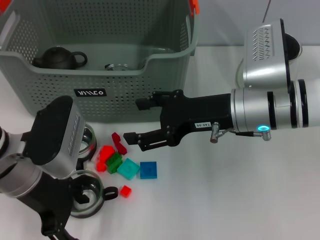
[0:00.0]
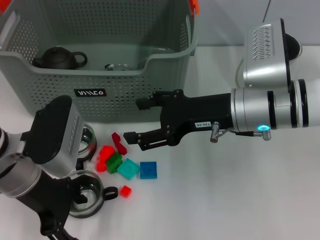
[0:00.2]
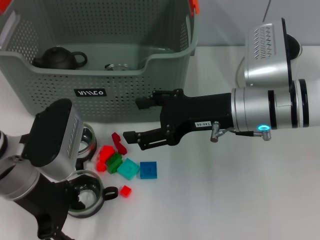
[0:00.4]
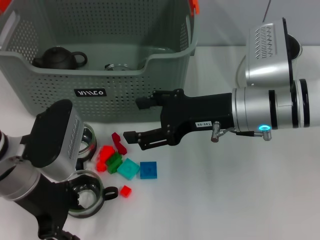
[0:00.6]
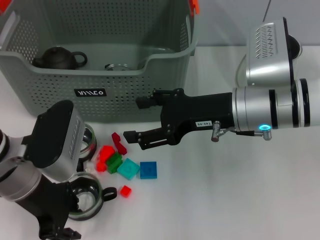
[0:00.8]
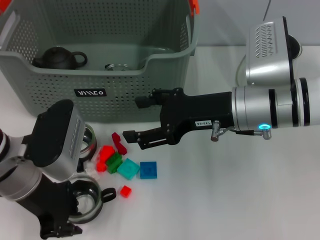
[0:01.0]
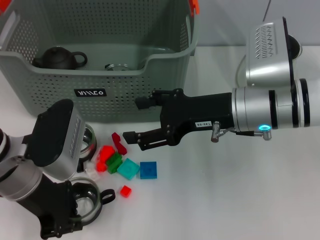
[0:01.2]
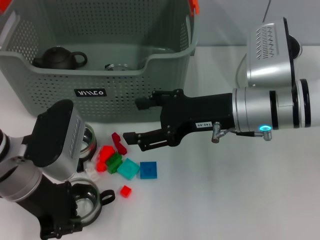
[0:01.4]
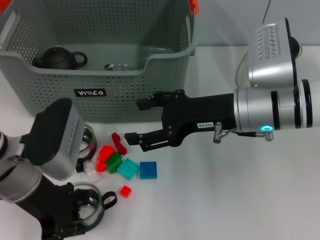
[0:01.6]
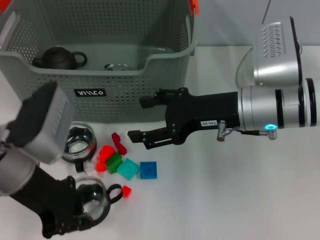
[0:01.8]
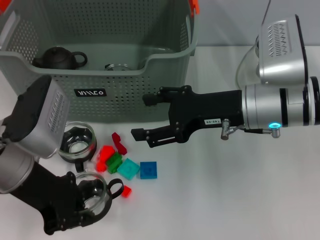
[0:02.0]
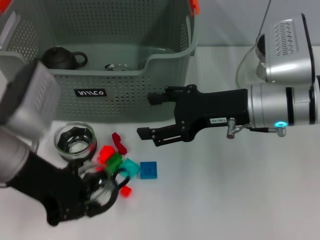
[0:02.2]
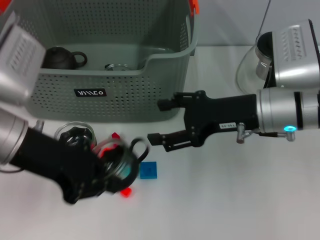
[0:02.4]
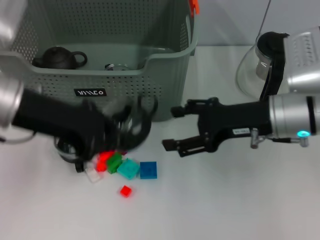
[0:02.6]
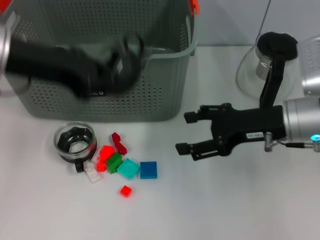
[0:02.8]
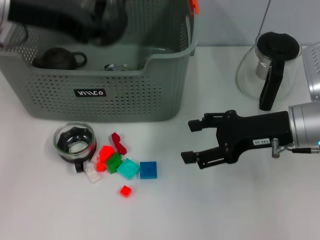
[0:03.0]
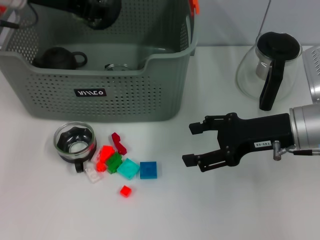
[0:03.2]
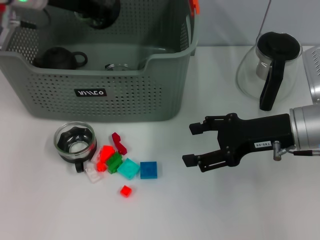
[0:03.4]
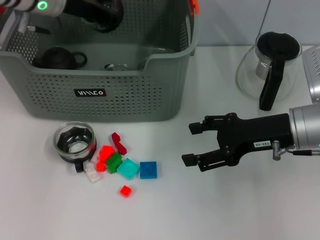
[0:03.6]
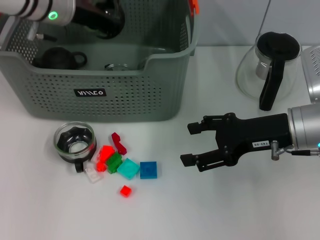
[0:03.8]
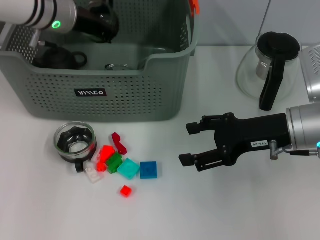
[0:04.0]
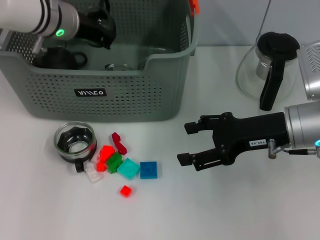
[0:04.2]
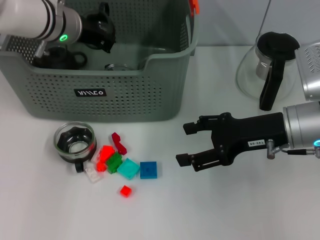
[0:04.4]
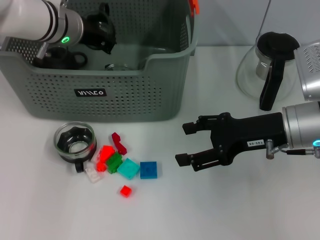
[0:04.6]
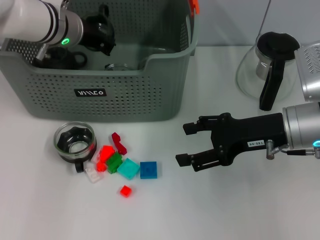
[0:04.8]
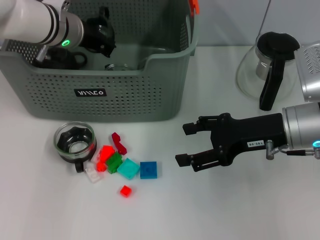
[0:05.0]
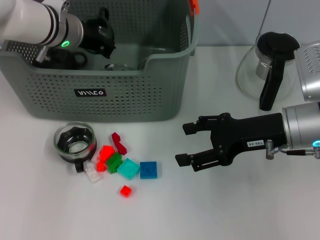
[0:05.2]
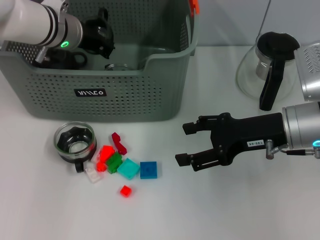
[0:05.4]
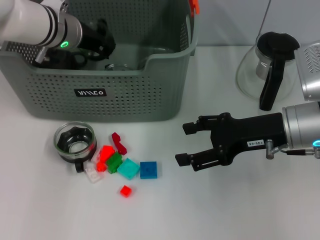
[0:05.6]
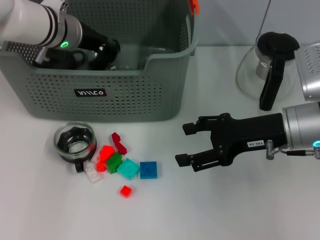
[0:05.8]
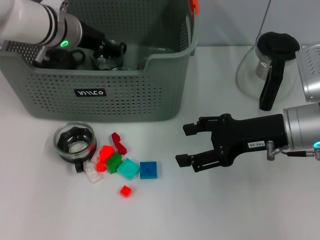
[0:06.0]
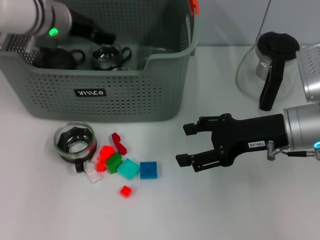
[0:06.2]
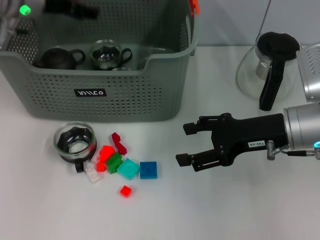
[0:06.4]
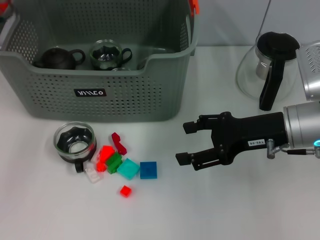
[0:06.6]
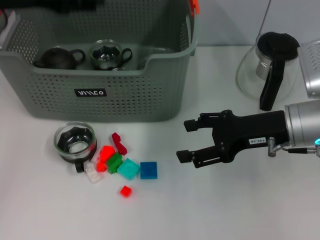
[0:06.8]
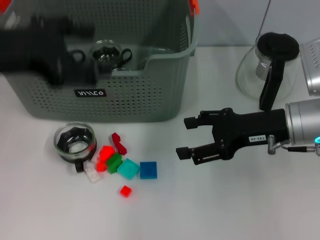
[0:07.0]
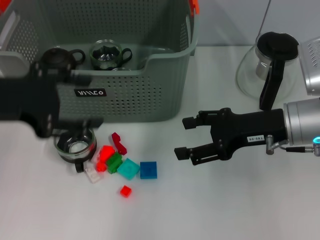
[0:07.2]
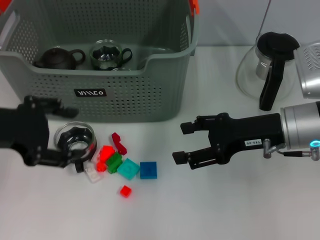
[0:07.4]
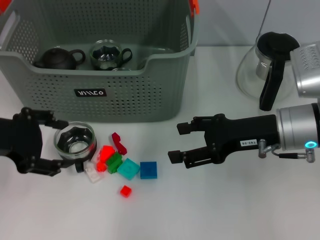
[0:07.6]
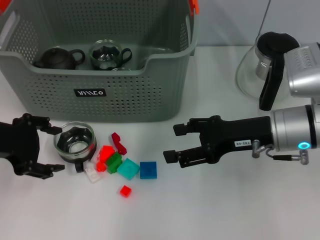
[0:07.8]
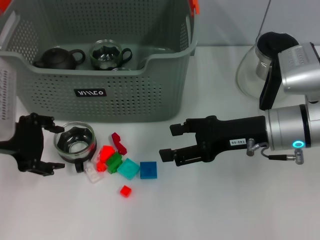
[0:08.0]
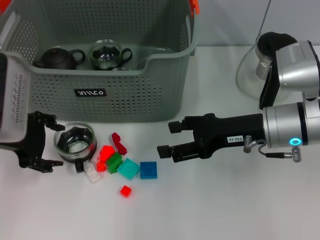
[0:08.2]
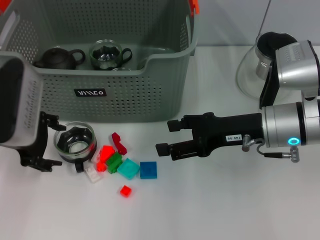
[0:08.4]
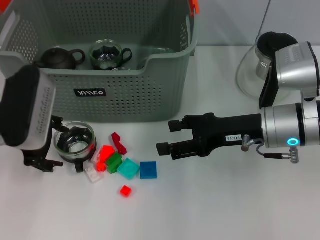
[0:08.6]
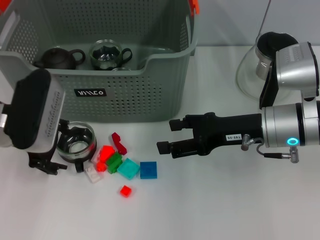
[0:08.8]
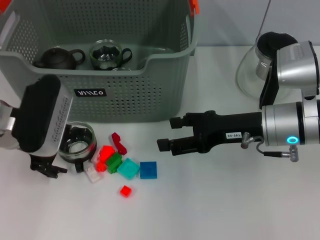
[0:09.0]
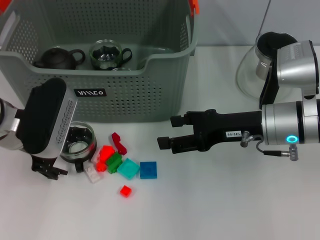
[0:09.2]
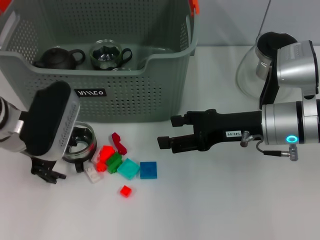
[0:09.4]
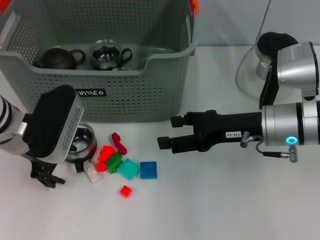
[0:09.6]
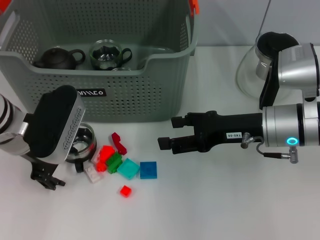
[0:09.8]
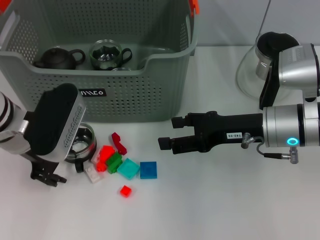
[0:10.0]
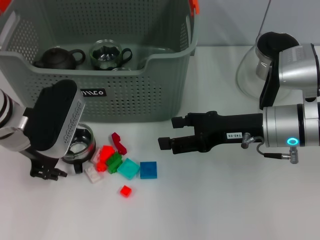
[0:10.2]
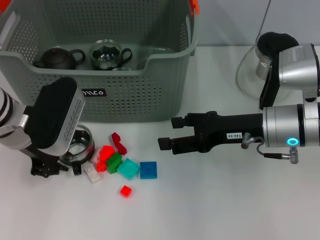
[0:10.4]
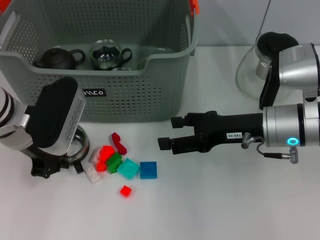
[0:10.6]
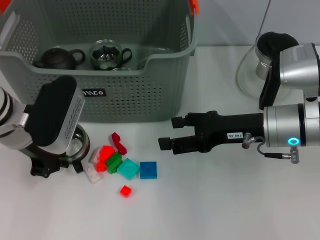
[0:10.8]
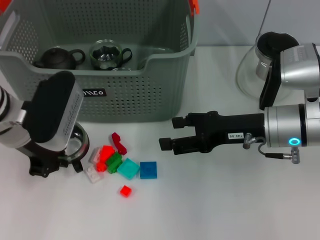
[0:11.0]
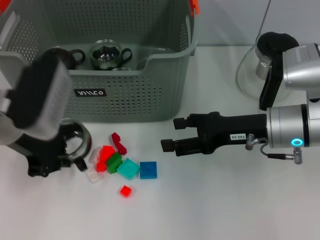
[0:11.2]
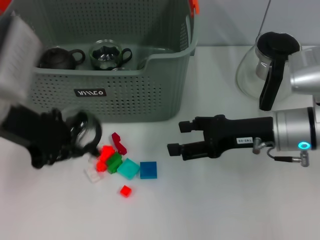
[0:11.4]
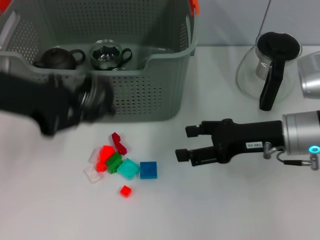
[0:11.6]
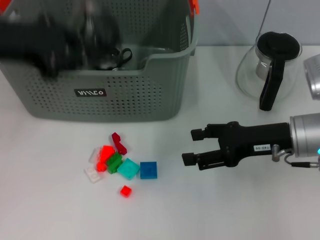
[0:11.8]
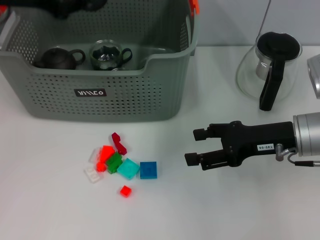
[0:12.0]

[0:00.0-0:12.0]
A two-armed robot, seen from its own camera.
Task of the whole recording: pick up the teacup on the table and place it into the storage bin, pick up the block on the table and place it into the storage bin.
Step, 0:01.6 to 0:06.2: Place the cup in the storage box with left gripper.
Step, 0:06.6 to 0:10.8: Grasp the cup with left gripper.
0:00.0 to 0:01.6: The left gripper closes.
0:01.6 to 0:03.0: The left gripper heads upward and forward, covering approximately 15 cm. The right gripper goes about 5 cm to the right.
0:03.0 to 0:04.4: The left gripper moves downward, forward and to the right, roughly 15 cm.
0:04.4 to 0:06.0: Neither gripper changes place.
0:06.0 to 0:07.6: The left gripper goes roughly 20 cm backward and to the left, and opens.
0:07.6 to 0:09.0: The left gripper heads forward and to the right, covering roughly 5 cm.
0:09.0 to 0:10.4: The left gripper closes up.
0:10.4 to 0:12.0: The left gripper travels upward by approximately 15 cm, and closes up.

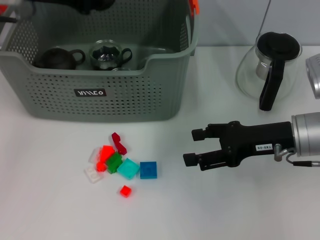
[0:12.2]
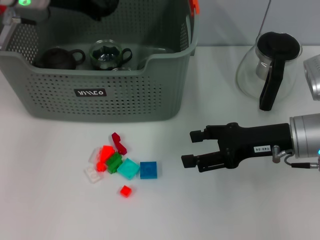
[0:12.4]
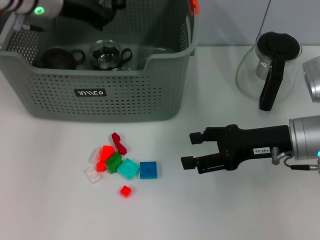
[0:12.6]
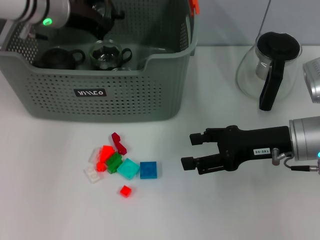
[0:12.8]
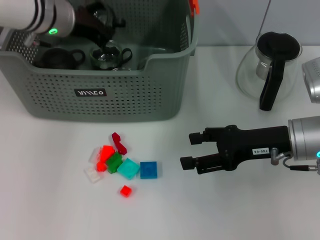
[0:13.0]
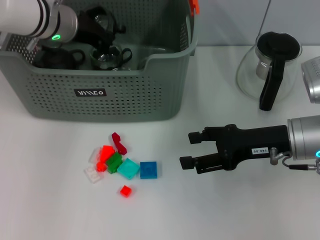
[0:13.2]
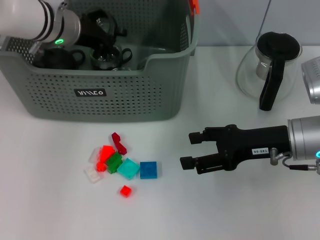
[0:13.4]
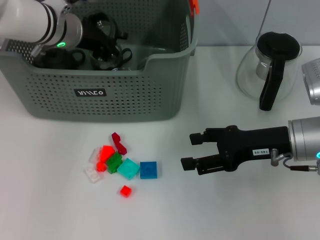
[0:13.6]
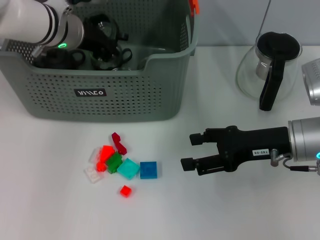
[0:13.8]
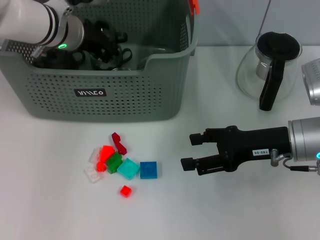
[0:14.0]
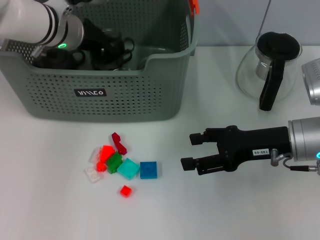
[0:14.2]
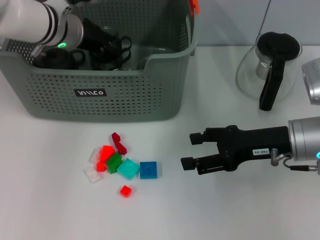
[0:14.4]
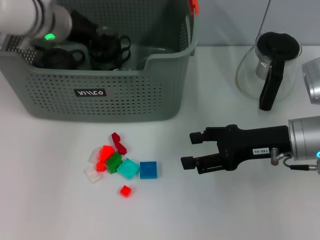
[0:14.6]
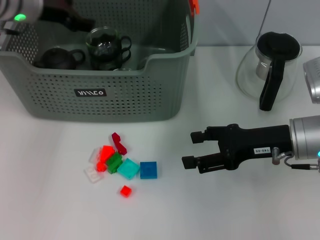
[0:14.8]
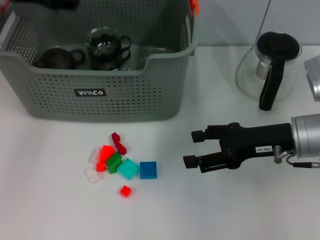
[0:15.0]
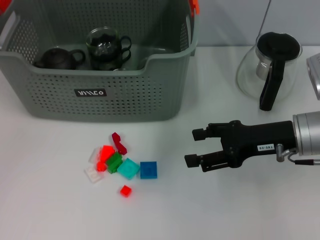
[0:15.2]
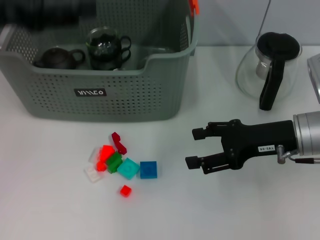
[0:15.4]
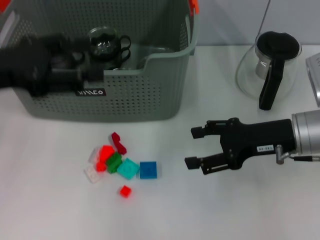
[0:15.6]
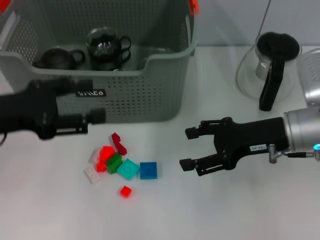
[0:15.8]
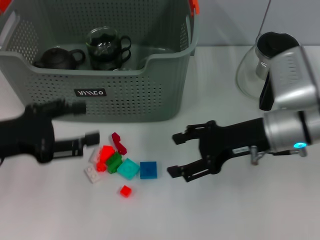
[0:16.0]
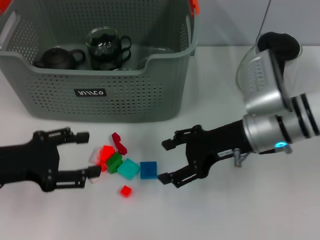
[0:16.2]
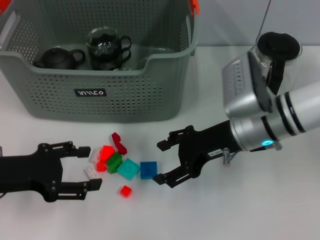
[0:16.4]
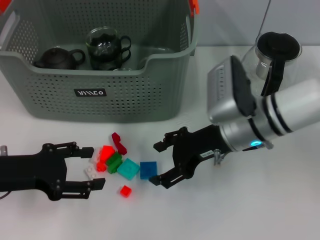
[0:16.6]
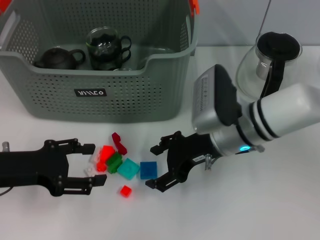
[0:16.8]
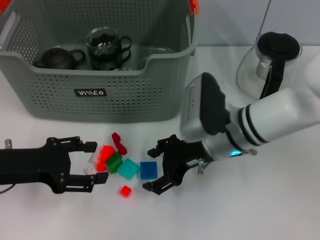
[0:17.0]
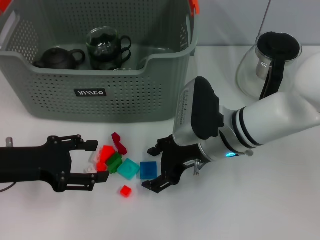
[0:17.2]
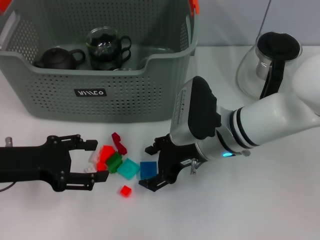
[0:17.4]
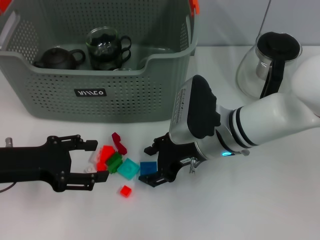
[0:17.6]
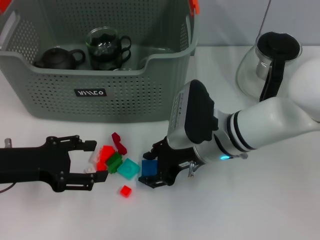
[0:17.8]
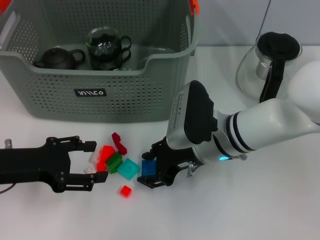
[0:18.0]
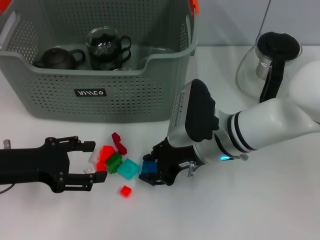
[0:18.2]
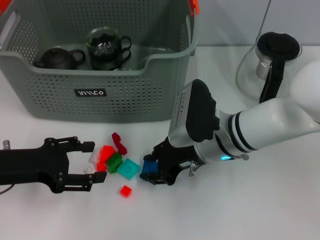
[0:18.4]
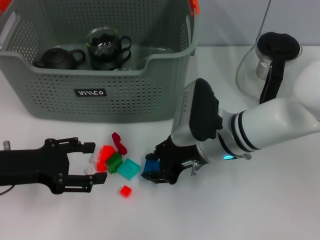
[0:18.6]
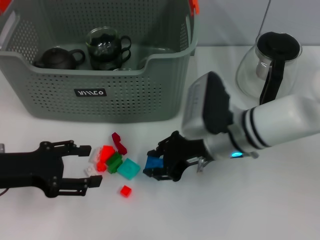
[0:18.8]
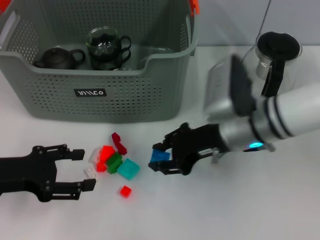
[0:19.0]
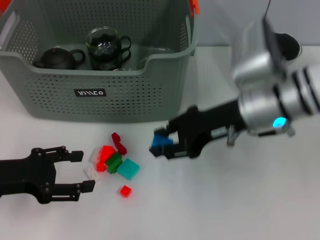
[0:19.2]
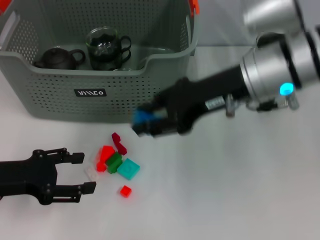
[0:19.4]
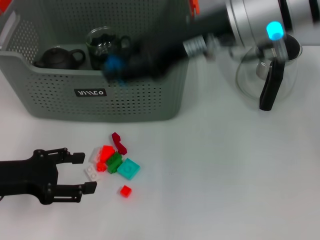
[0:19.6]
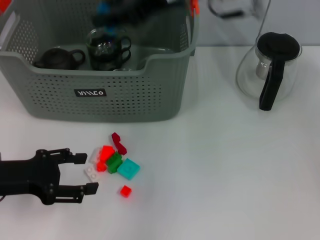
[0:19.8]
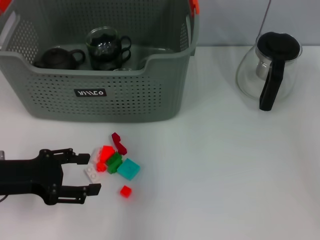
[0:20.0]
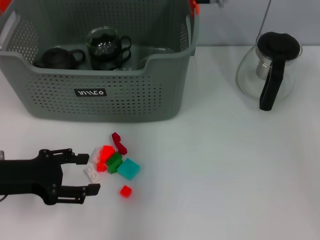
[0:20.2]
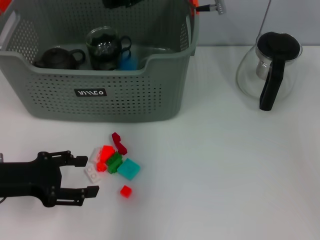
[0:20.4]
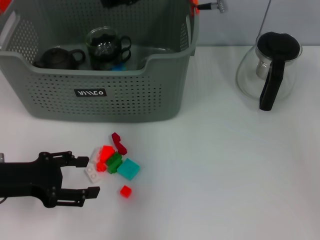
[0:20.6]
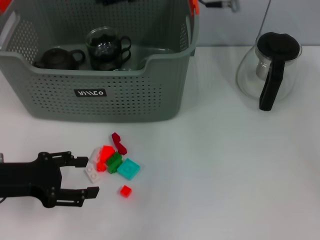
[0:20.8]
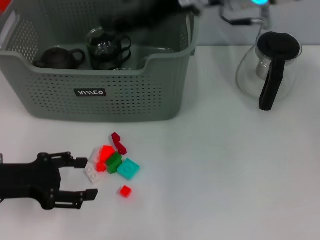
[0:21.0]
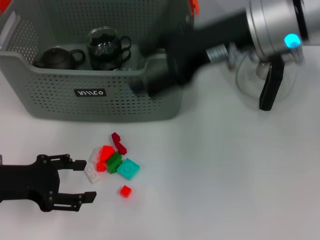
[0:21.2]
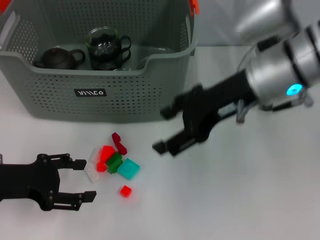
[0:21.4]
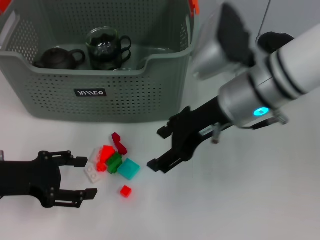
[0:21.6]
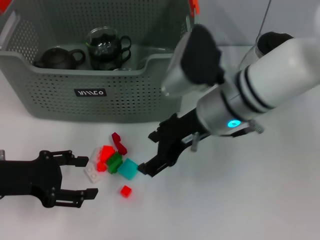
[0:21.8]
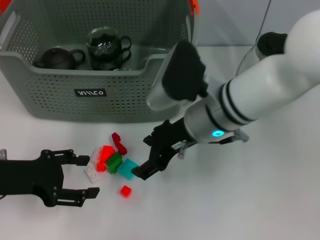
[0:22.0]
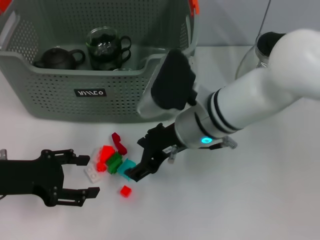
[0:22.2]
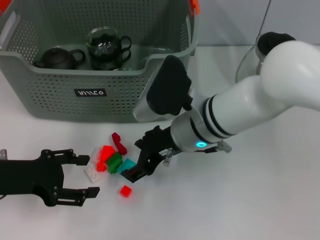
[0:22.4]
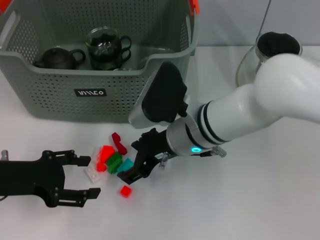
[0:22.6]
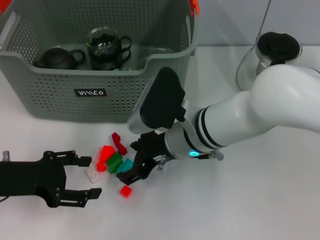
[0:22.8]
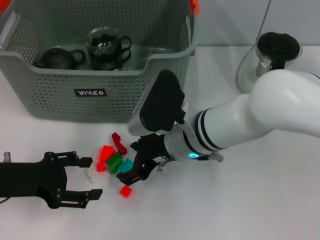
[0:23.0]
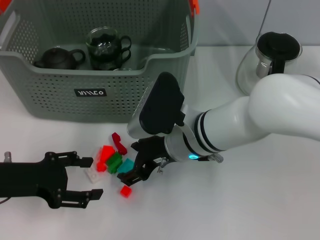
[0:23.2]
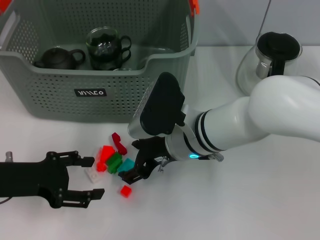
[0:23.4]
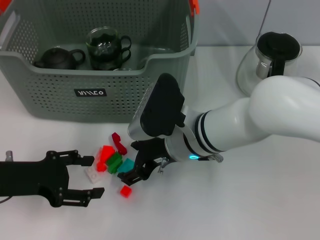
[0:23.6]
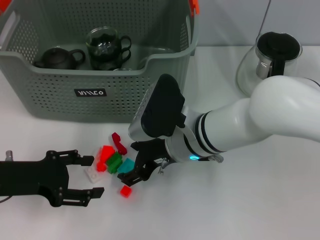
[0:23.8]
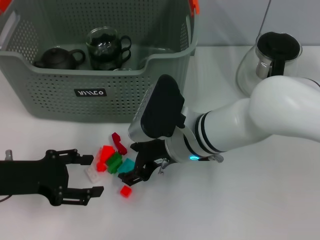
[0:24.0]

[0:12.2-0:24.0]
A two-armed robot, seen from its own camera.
Task of the whole recording: pick up the teacup on the table and place it into the storage bin, pick up the block on the table and place it into the storage bin.
Step, 0:12.2 to 0:15.0: Place the cup in the storage box with left gripper.
Step, 0:15.2 to 0:18.4: Grasp the dark blue block with right gripper.
Step, 0:18.8 to 0:20.6: Place the dark blue block in the storage box with right gripper.
0:12.2 to 0:13.6: The left gripper travels downward and to the right by approximately 10 cm.
0:13.6 to 0:15.2: The left gripper moves upward, to the left and backward, some 15 cm, and opens up.
0:15.2 to 0:16.6: The left gripper is displaced downward and backward by approximately 20 cm. The right gripper heads to the left, covering roughly 10 cm.
0:16.6 to 0:18.2: The right gripper moves some 5 cm.
0:18.2 to 0:19.6: The right gripper goes approximately 20 cm upward.
0:19.6 to 0:21.0: The right gripper opens up.
0:21.0 to 0:22.6: The right gripper heads downward, covering roughly 15 cm.
0:22.6 to 0:24.0: The grippers move only a little.
